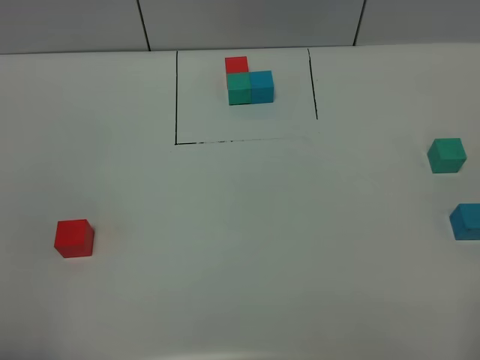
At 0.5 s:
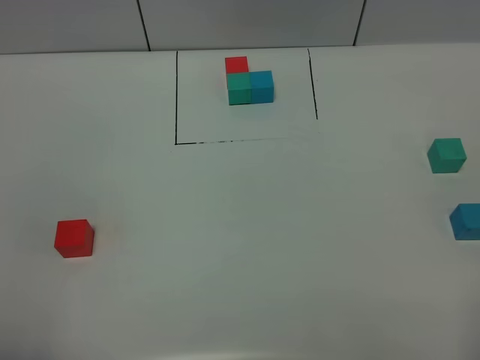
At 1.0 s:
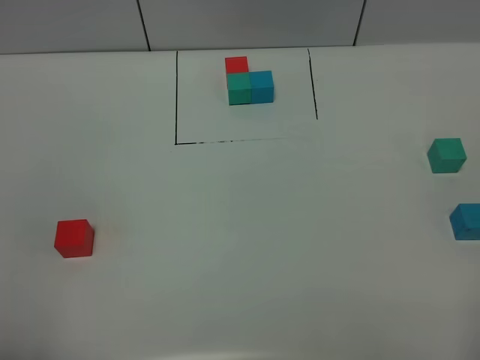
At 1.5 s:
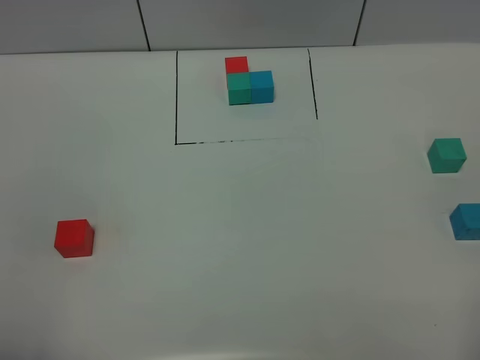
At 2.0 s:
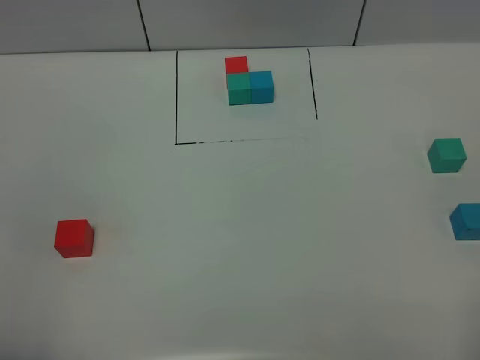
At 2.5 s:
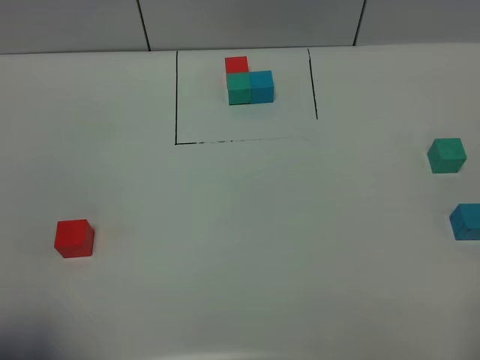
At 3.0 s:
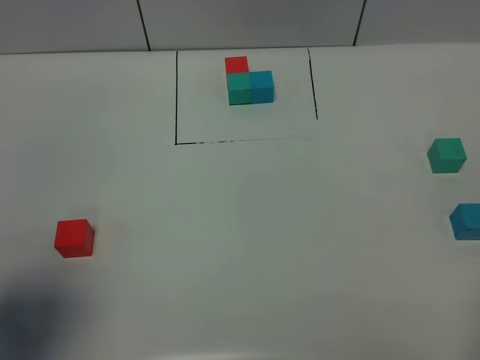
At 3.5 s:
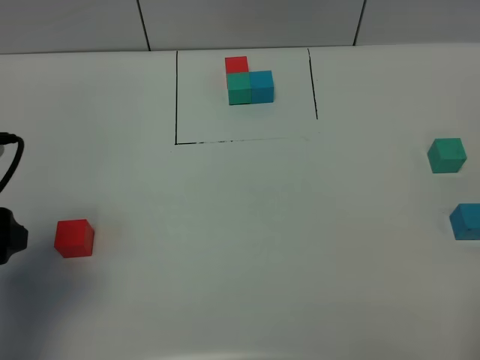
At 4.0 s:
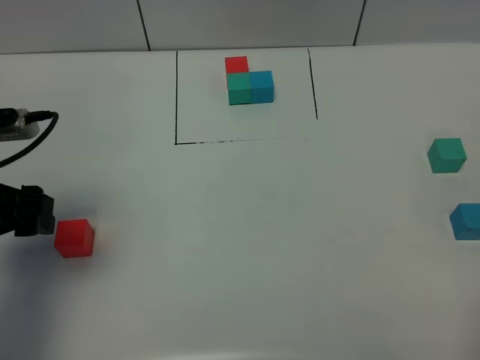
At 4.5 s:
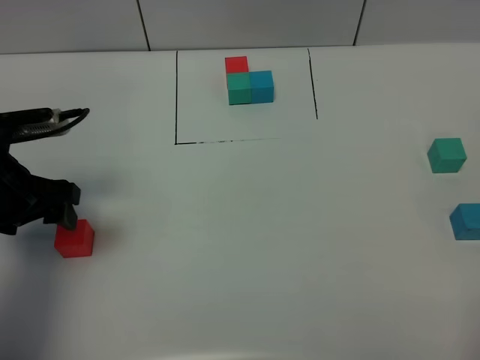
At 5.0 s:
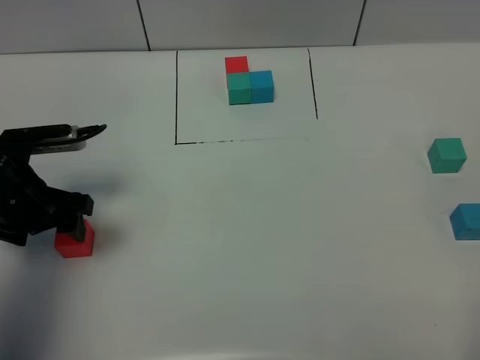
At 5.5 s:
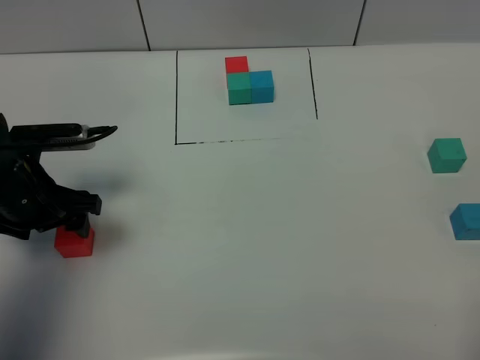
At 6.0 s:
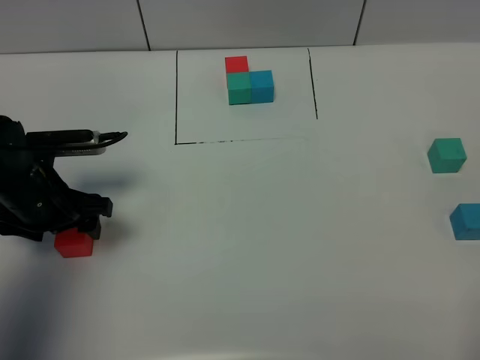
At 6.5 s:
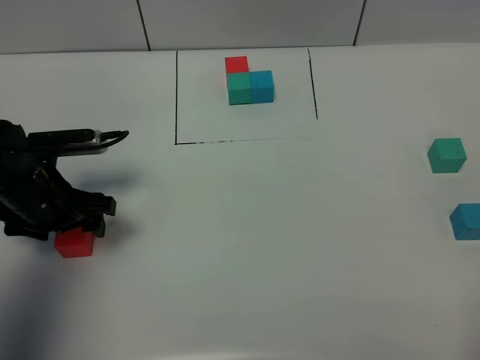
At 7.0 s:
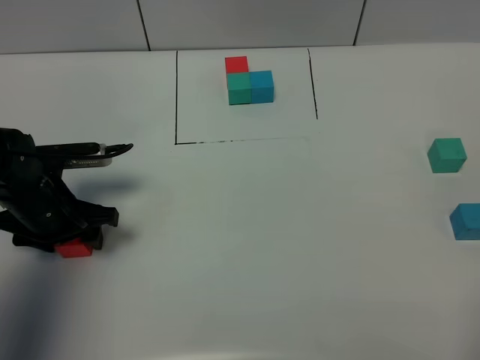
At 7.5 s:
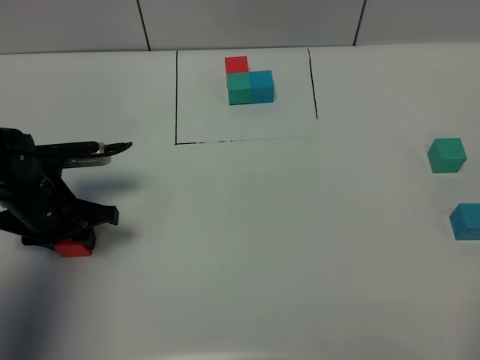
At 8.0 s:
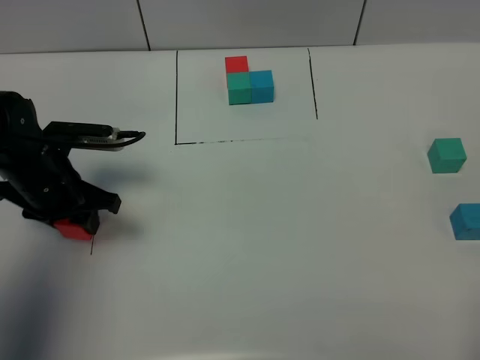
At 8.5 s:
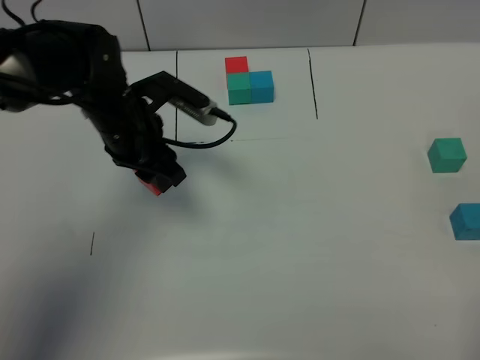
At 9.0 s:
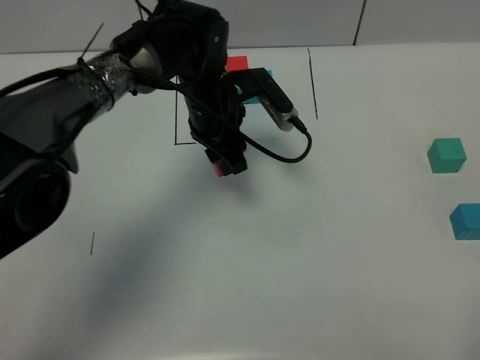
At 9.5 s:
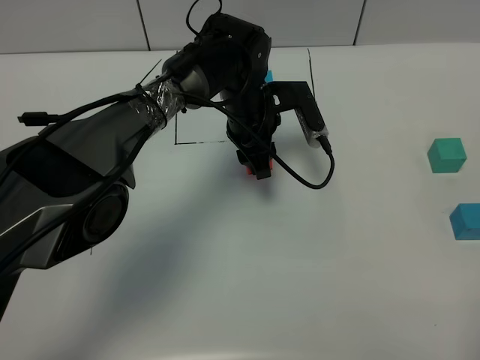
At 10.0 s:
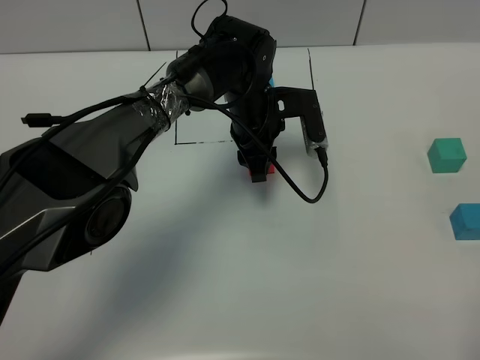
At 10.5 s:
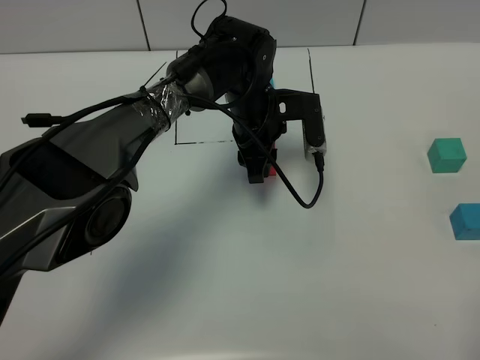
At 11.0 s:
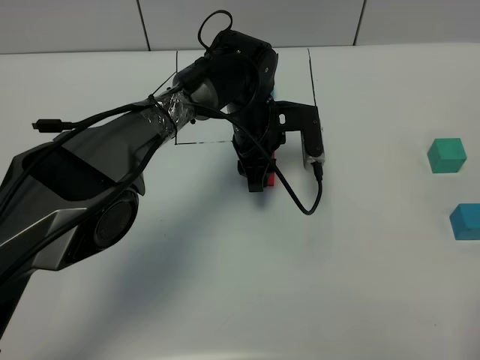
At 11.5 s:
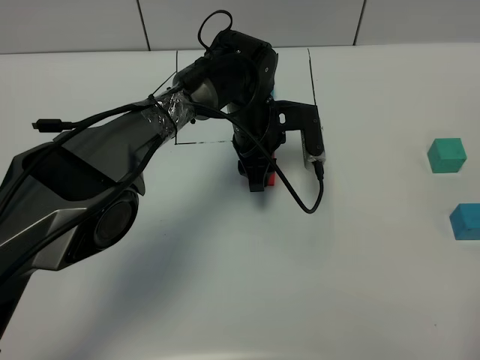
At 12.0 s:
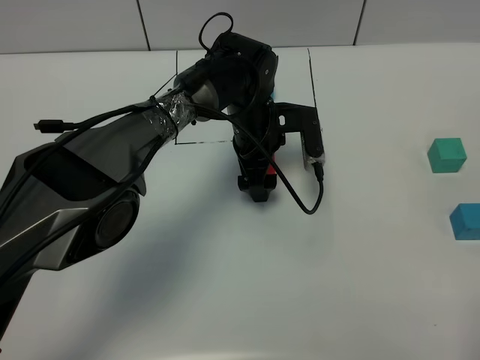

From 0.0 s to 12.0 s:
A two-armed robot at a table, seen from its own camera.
Task of the whole recording: According to the building block template in front, assemble the scattered blocks together.
Step, from 0.0 s to 11.5 s: Put the red build block in the center of the table.
From 0.0 s to 2.0 s: Neither gripper changes place.
From 2.0 s to 4.0 s: The left gripper is displaced forward by about 25 cm.
From 4.0 s to 6.0 s: The left gripper moves downward and forward, approximately 10 cm.
From 6.0 s to 8.0 s: The left gripper closes.
From 8.0 s to 10.0 s: The left gripper is displaced to the right and forward by roughly 25 cm.
From 10.0 s to 12.0 s: The left gripper opens its fingers.

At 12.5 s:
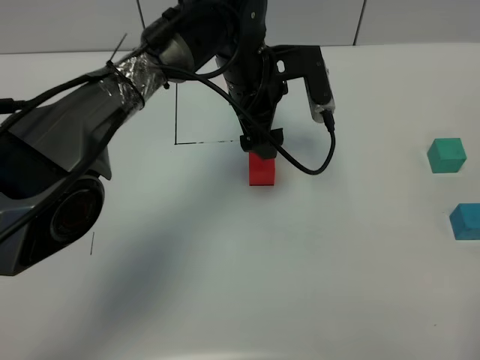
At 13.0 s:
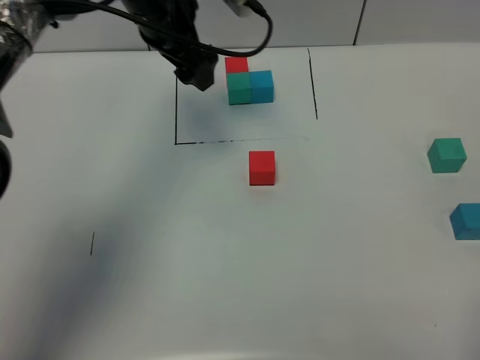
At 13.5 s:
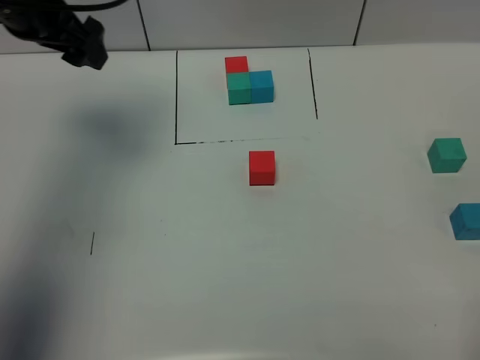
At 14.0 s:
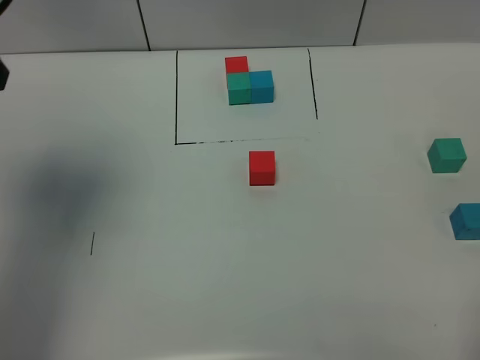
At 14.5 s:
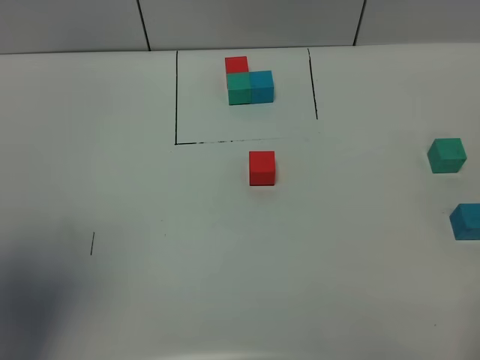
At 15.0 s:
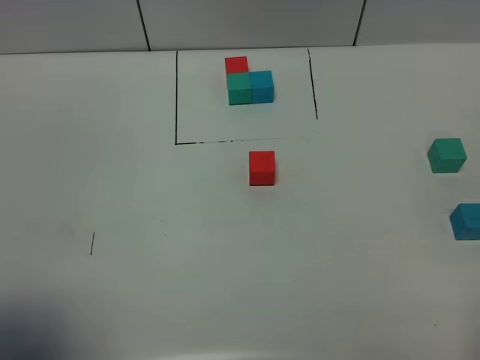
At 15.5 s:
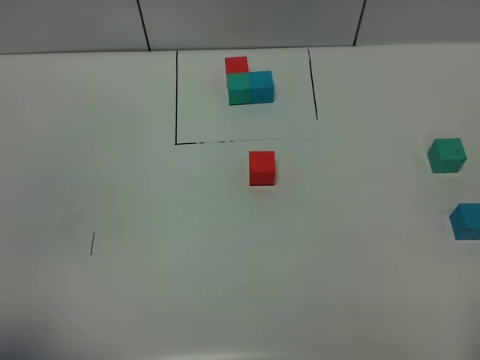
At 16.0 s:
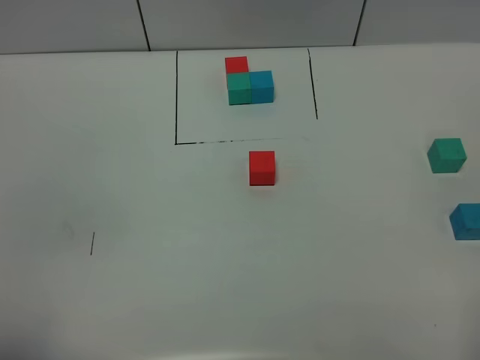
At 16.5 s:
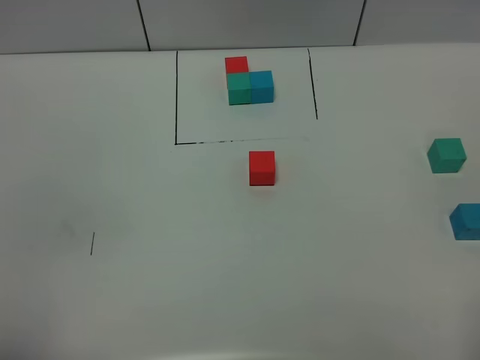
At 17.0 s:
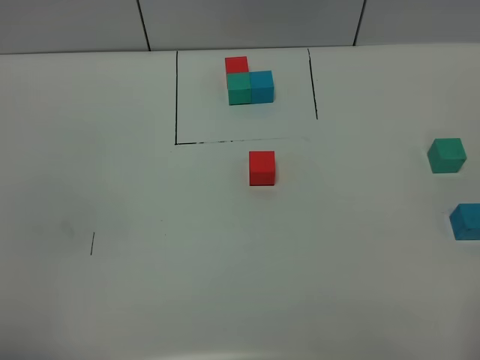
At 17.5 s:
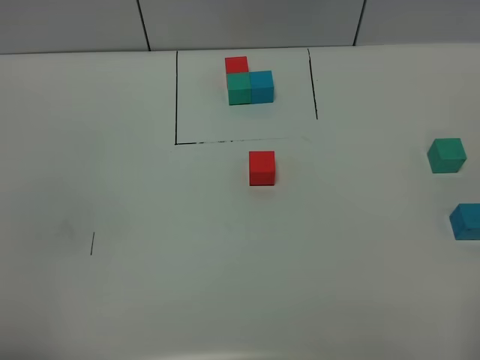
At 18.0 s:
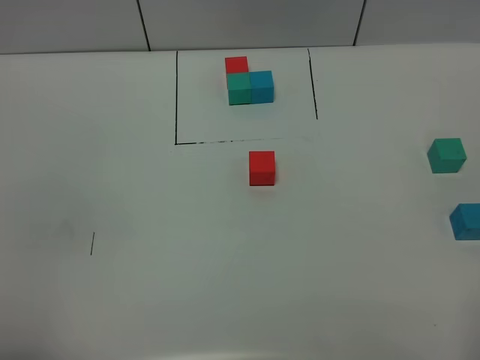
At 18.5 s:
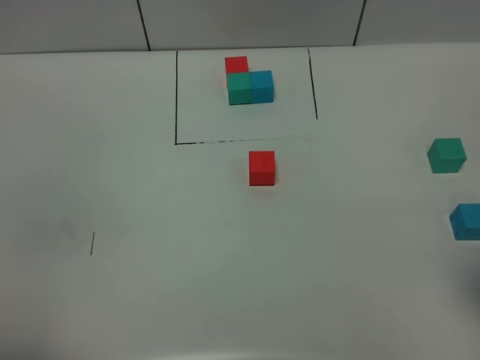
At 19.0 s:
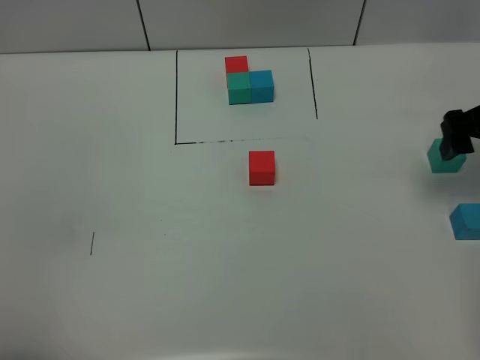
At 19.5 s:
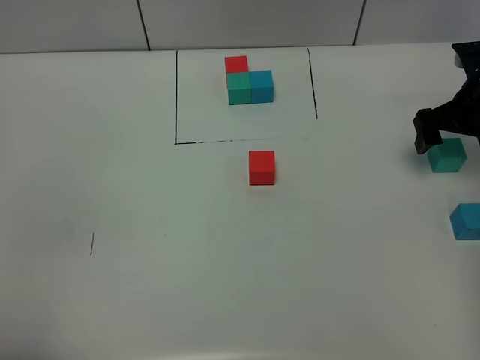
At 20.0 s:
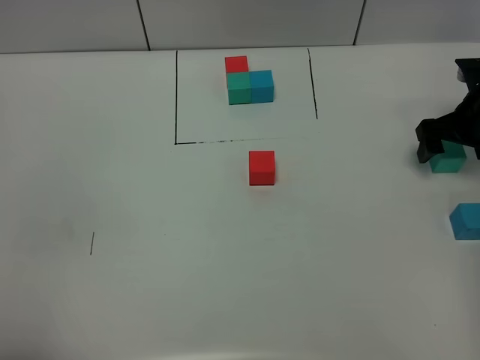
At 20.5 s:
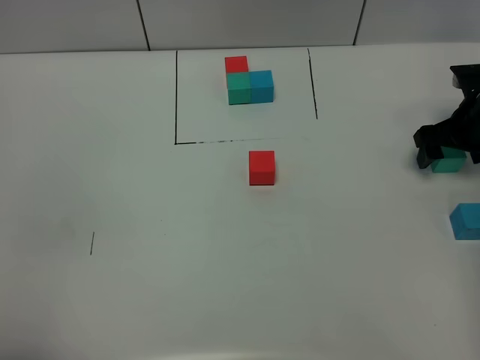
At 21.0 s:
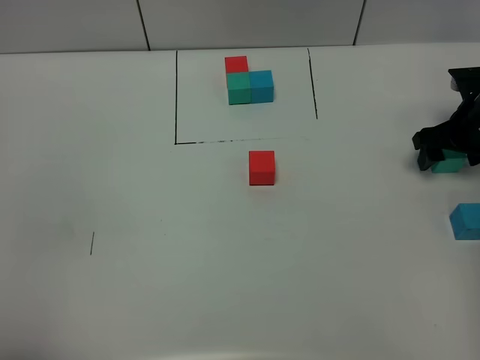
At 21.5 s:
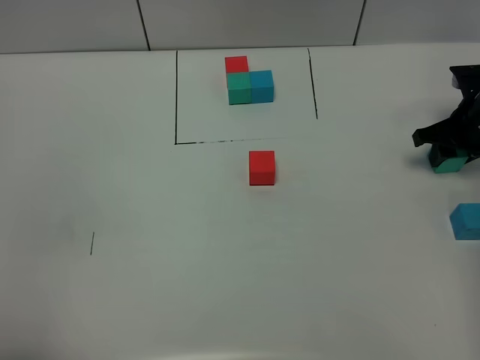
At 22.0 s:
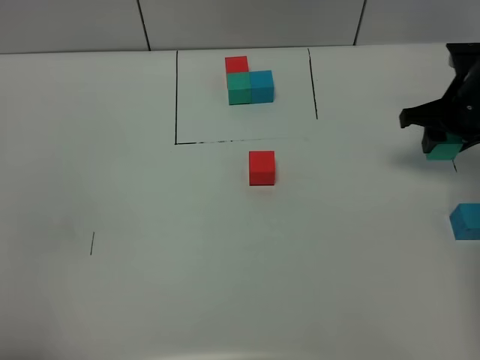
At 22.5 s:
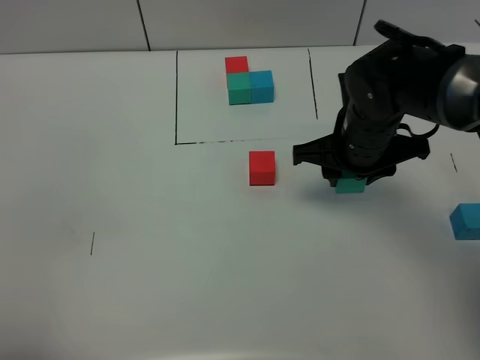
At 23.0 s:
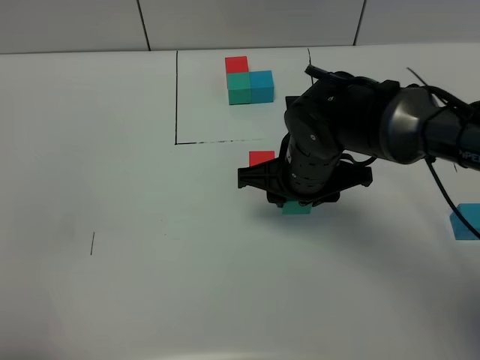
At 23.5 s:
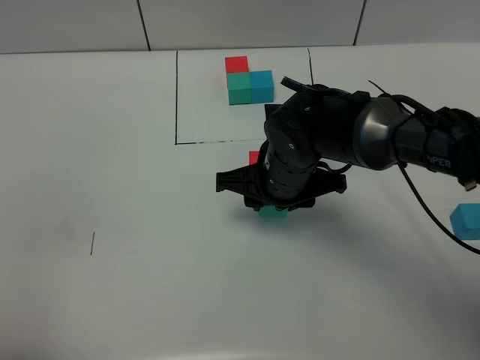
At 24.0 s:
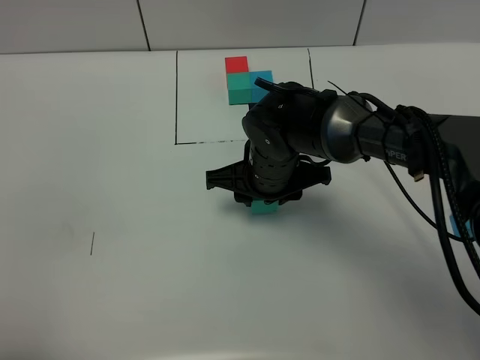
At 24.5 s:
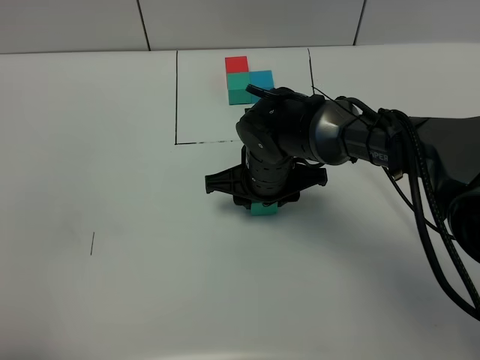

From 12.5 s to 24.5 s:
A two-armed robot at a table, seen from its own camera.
Task of the whole recording: According to the building block template in front, assemble the scattered blocks together.
From 12.5 s to 14.5 s: The left gripper goes roughly 50 cm backward, to the left and upward.
From 14.5 s to 16.5 s: The left gripper heads backward and downward, covering some 15 cm.
From 18.5 s to 20.5 s: The right gripper moves forward and downward, about 30 cm.
From 20.5 s to 22.5 s: The right gripper is displaced to the left by some 20 cm, and closes its fingers.
From 22.5 s to 24.5 s: The right gripper travels to the left and downward by roughly 10 cm.

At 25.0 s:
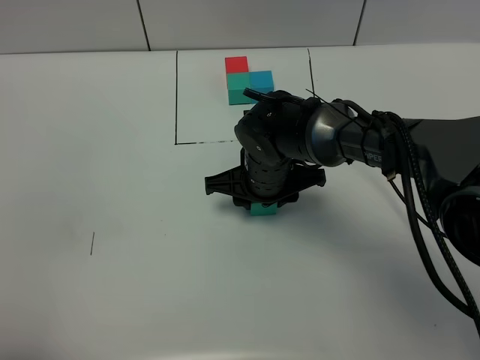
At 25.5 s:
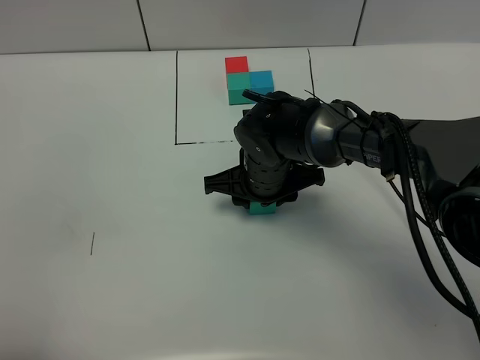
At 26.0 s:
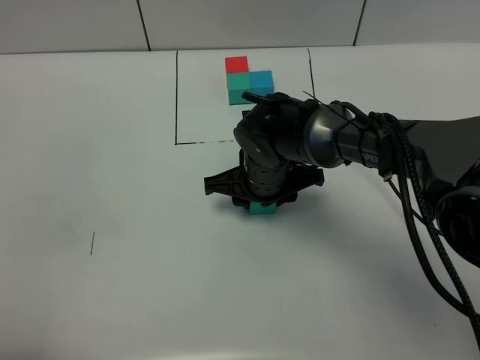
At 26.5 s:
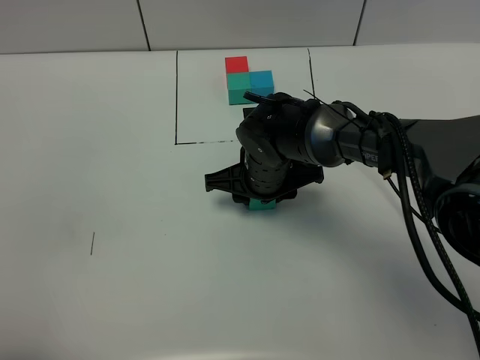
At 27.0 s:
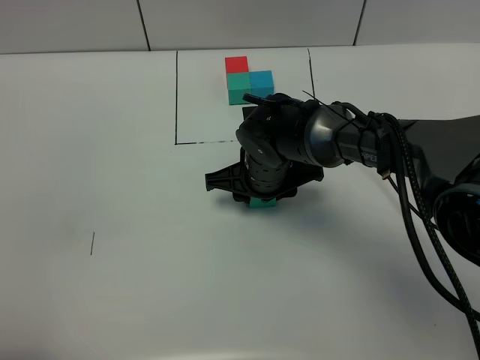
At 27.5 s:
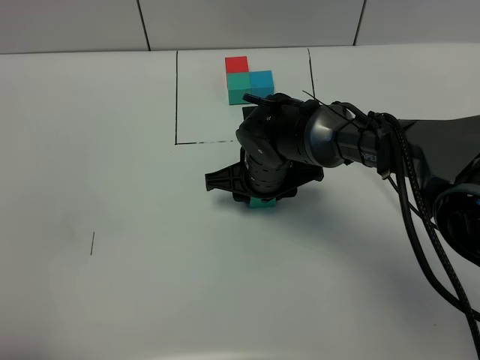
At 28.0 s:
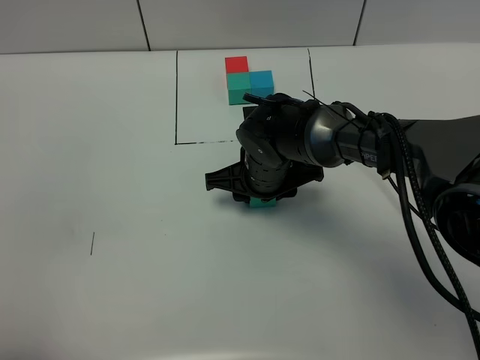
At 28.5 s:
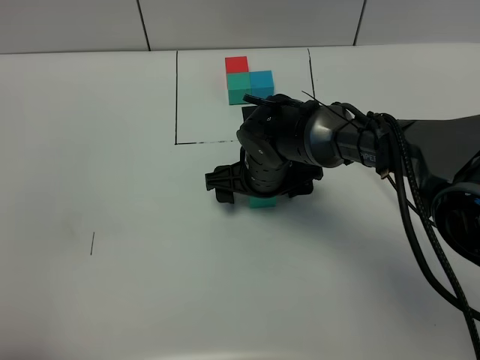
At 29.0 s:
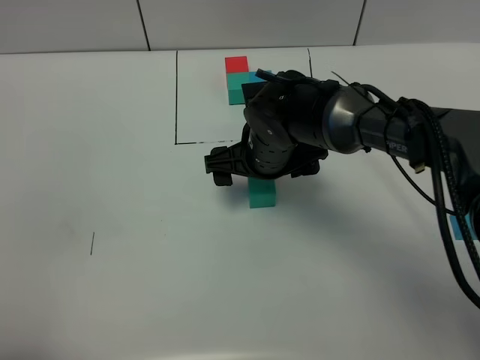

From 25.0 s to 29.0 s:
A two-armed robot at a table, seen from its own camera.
Task of the whole recording: According to the building block template in front, assemble the scattered blocks together.
Step, from 25.0 s to 28.5 s: Put the green build block on the behind of the red build block.
From 25.0 s to 27.0 s: Both grippers stay put.
From 27.0 s to 29.0 s: The right gripper opens up.
